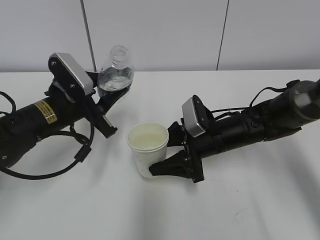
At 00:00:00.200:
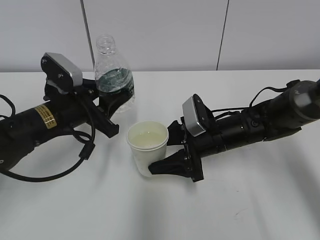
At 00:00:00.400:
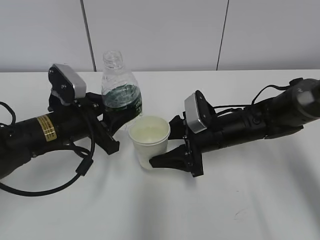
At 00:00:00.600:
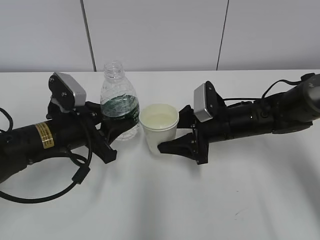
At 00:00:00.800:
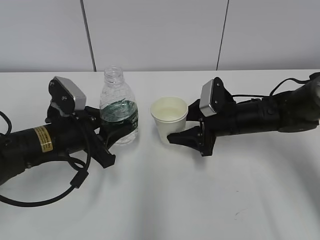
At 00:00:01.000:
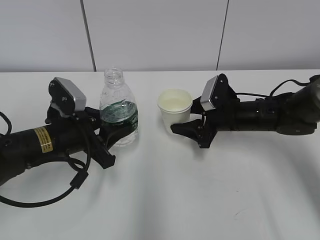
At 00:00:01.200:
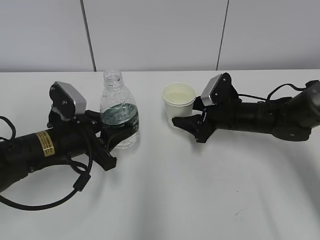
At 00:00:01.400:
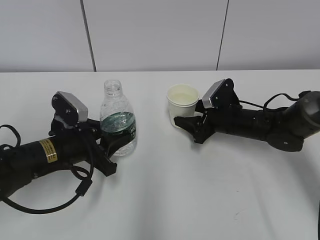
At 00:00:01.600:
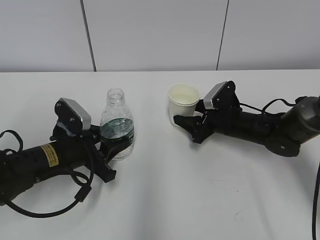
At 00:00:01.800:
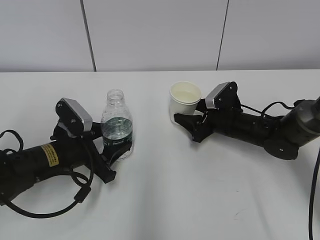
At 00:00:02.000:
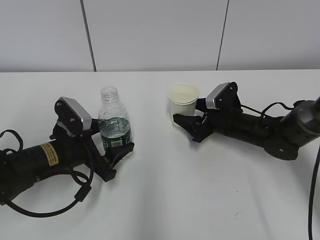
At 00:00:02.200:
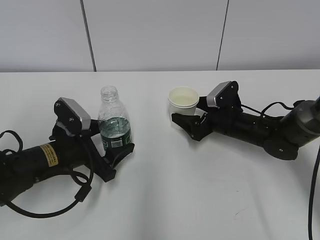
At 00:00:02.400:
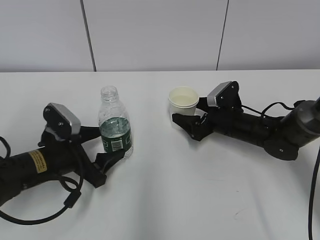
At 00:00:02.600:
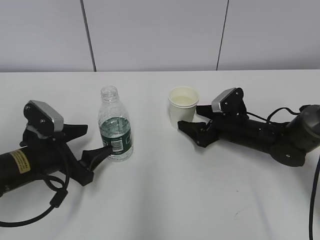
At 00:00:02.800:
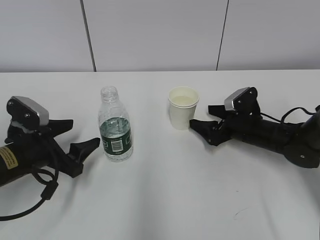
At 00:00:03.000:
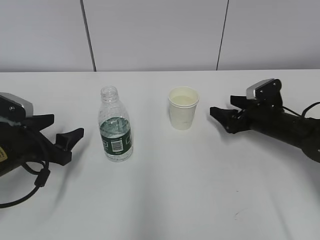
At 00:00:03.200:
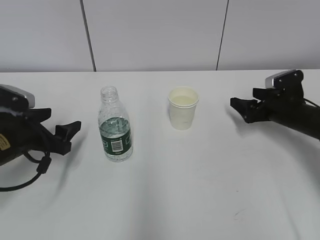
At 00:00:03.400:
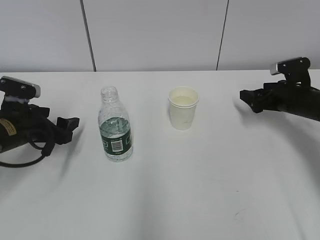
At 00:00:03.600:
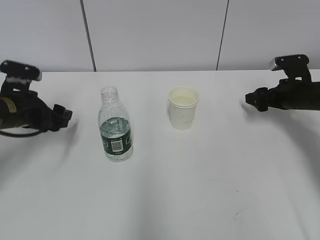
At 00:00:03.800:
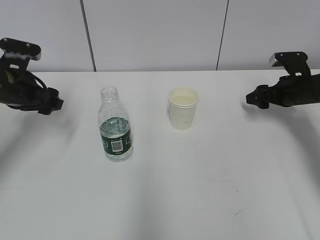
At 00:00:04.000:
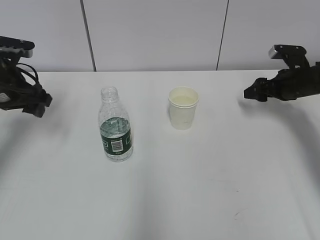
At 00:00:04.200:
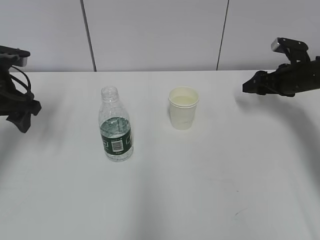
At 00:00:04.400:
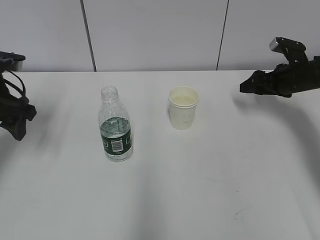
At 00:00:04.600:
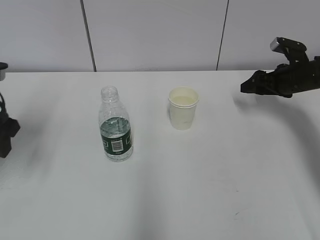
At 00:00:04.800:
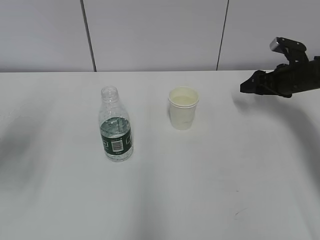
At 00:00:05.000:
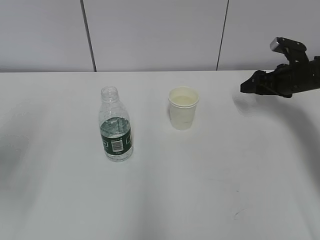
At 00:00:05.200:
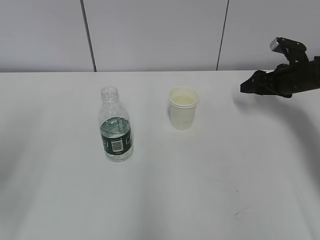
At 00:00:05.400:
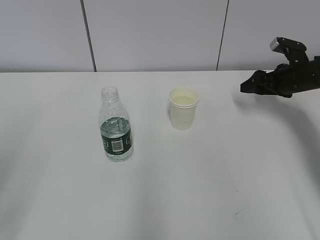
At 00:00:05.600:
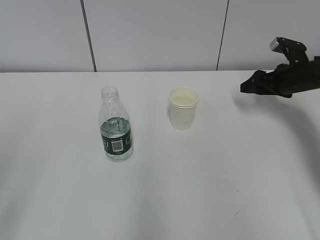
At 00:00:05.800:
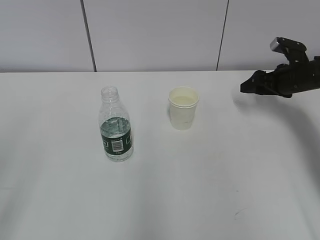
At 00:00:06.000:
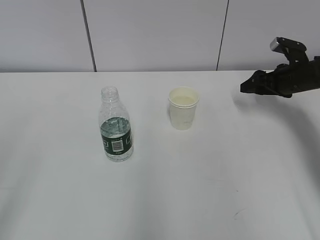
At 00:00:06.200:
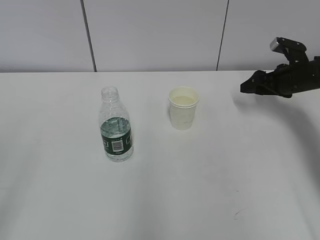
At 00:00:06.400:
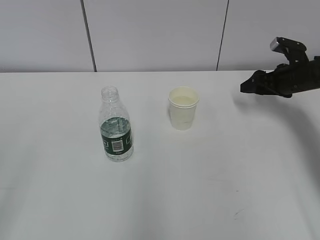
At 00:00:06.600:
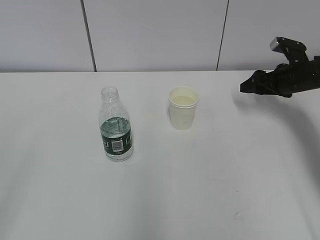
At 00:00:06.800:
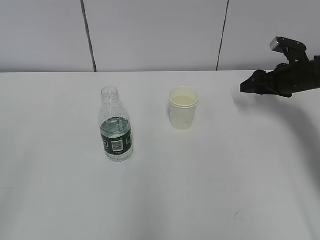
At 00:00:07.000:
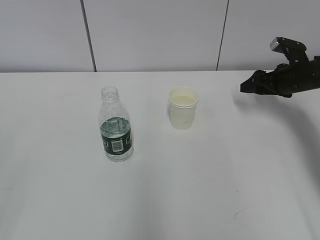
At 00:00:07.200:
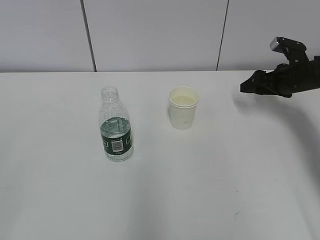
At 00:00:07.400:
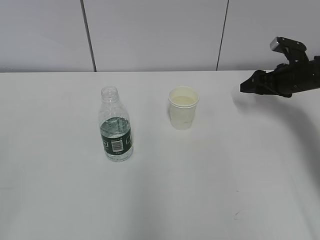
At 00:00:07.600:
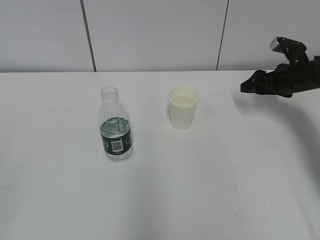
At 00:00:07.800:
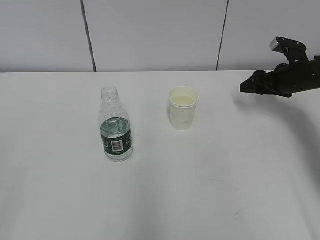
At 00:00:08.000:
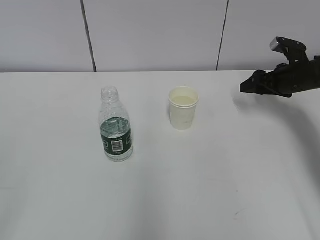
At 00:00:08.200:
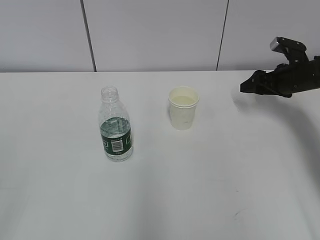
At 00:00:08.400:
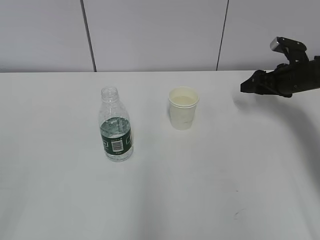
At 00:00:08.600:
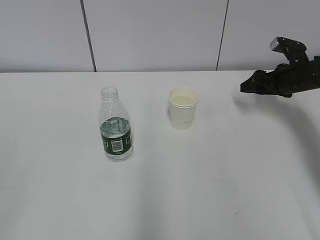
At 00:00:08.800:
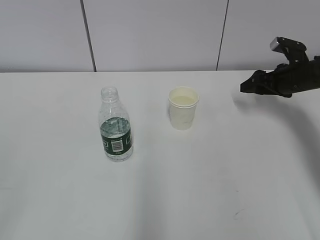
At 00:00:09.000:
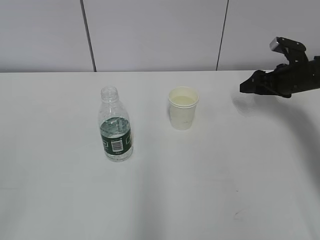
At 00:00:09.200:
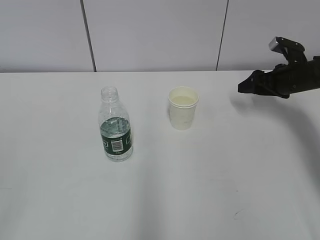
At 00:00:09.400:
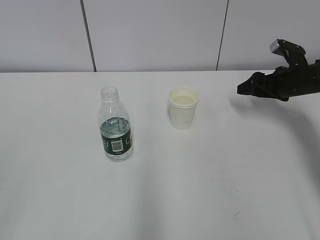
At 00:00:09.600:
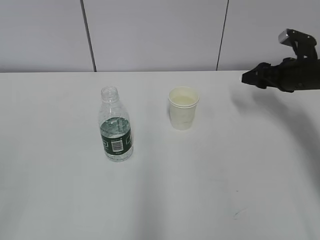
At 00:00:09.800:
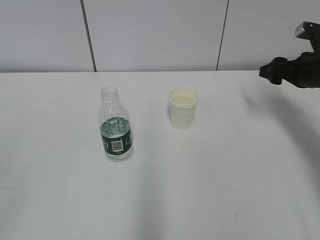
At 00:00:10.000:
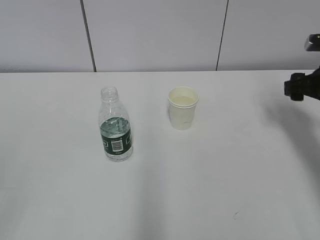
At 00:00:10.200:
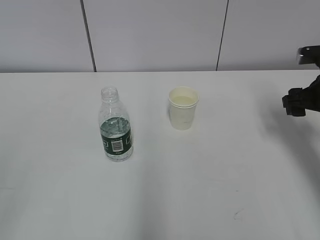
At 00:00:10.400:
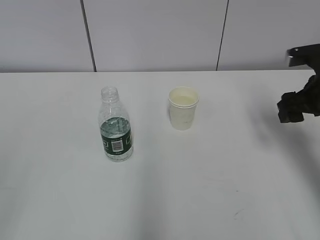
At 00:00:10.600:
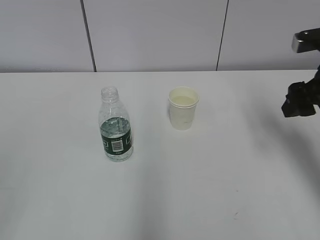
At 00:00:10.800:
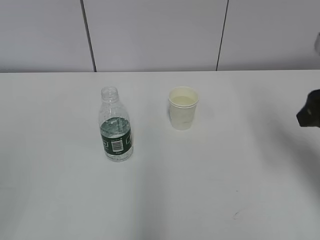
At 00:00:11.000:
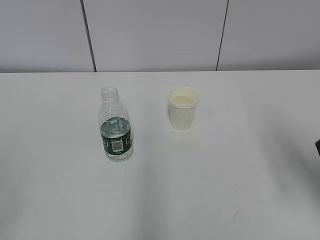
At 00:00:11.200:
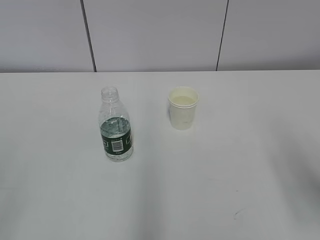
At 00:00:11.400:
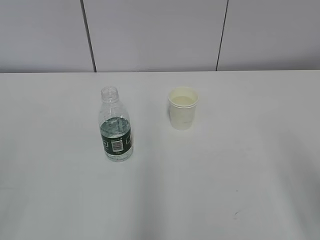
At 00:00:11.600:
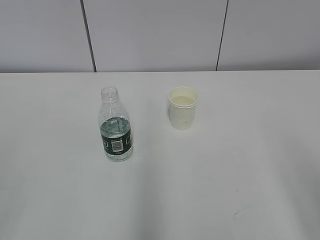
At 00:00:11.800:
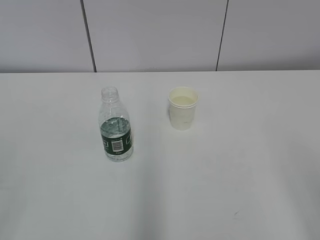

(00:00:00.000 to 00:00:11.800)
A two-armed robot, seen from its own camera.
00:00:00.000 - 00:00:01.400: The right gripper is displaced forward and to the right by approximately 10 cm. Meanwhile the left gripper goes approximately 5 cm downward.
00:00:01.400 - 00:00:03.000: The right gripper is displaced to the right by roughly 10 cm, and opens up, while the left gripper goes approximately 10 cm to the left, and opens up.
00:00:03.000 - 00:00:04.400: The left gripper is displaced upward and forward by some 15 cm, while the right gripper goes approximately 10 cm upward, to the right and forward, and closes.
00:00:04.400 - 00:00:06.000: The left gripper moves backward, approximately 30 cm.
00:00:08.800 - 00:00:10.400: The right gripper shifts some 15 cm backward and upward.
00:00:10.400 - 00:00:11.800: The right gripper moves backward, roughly 30 cm.
